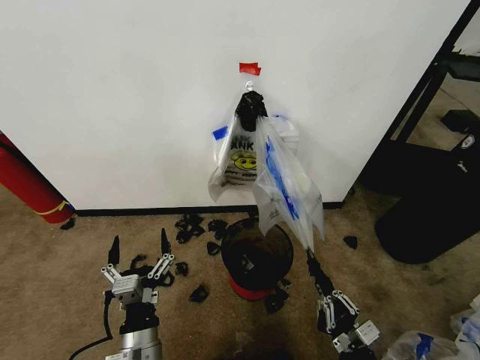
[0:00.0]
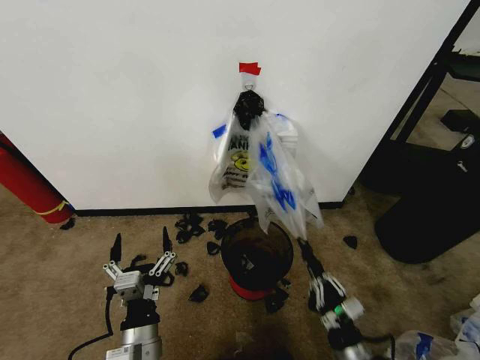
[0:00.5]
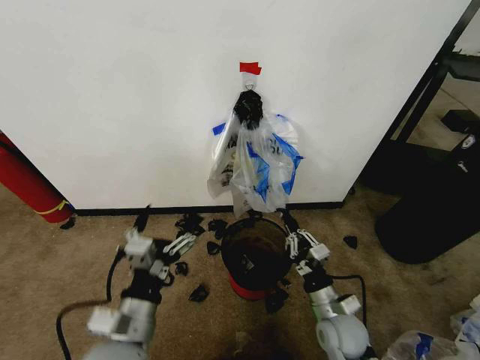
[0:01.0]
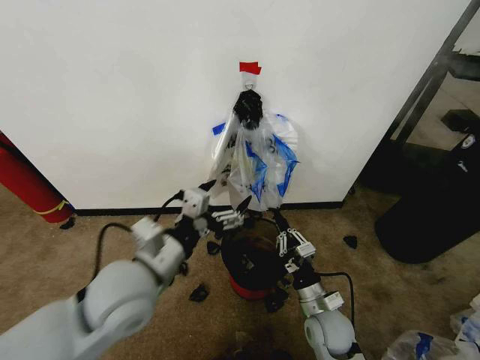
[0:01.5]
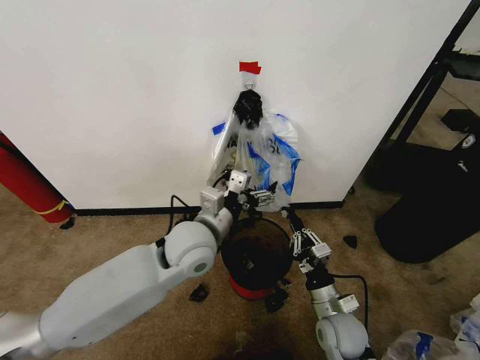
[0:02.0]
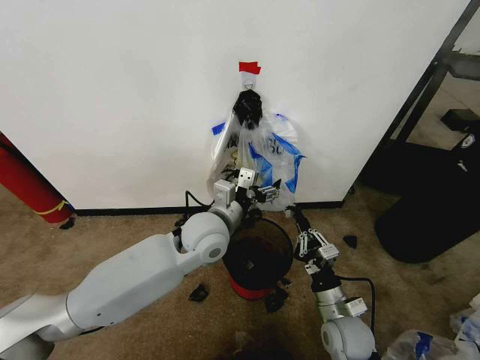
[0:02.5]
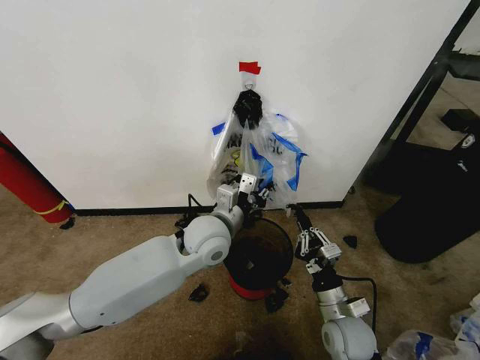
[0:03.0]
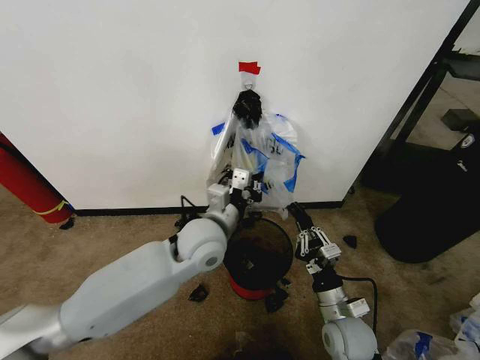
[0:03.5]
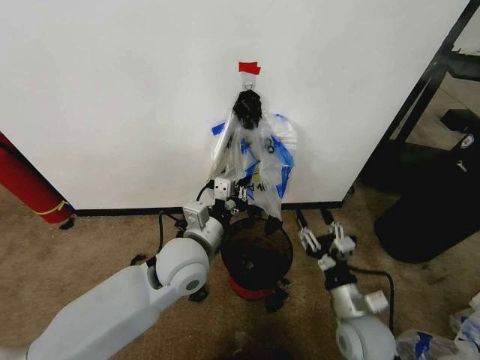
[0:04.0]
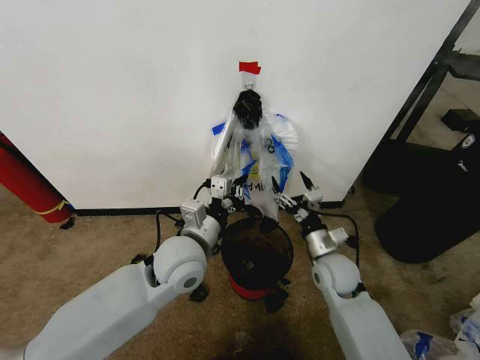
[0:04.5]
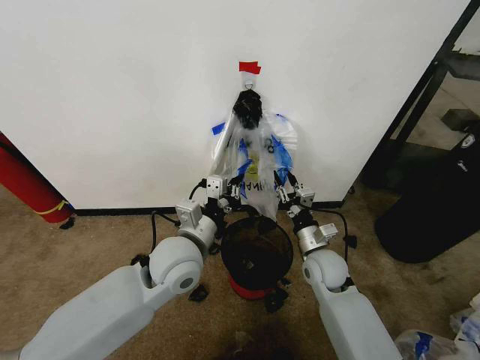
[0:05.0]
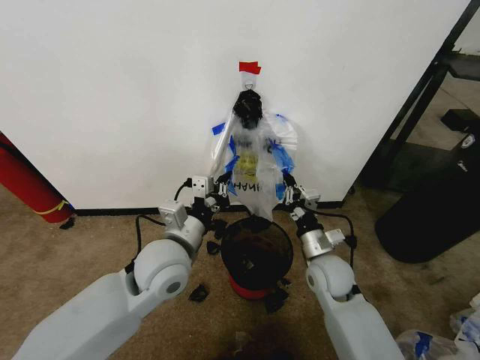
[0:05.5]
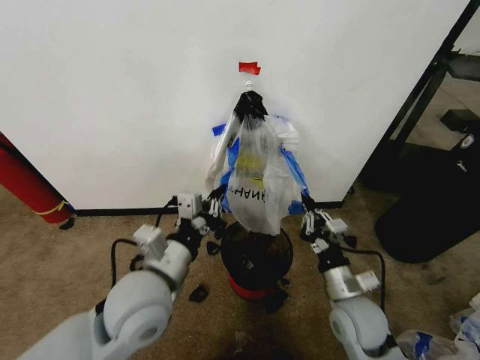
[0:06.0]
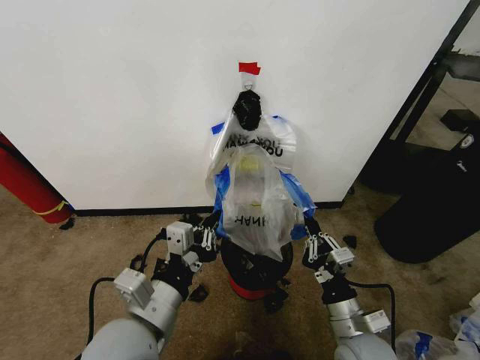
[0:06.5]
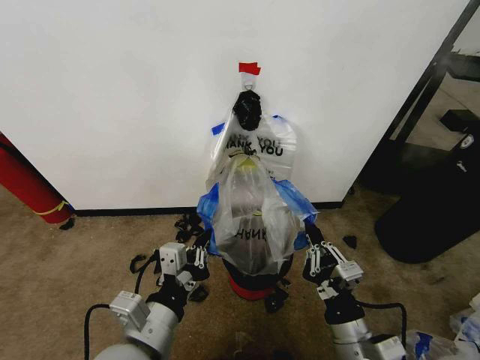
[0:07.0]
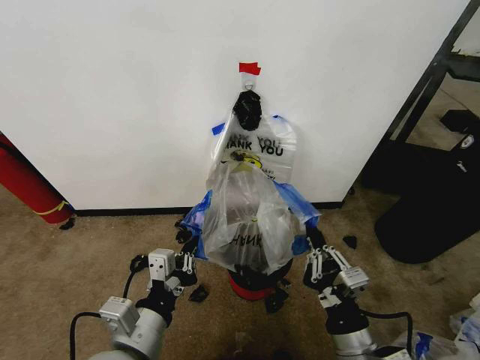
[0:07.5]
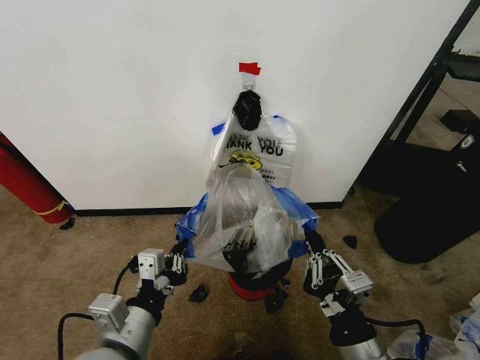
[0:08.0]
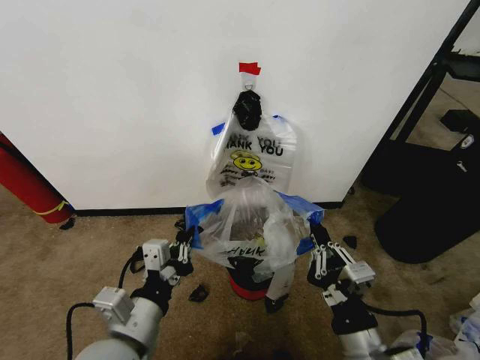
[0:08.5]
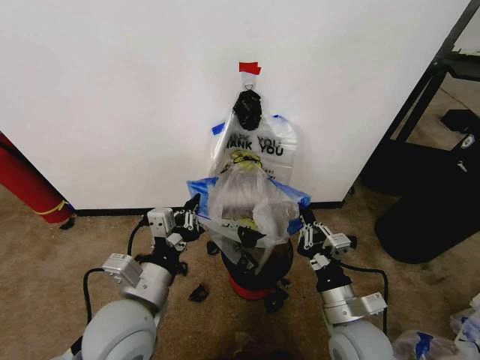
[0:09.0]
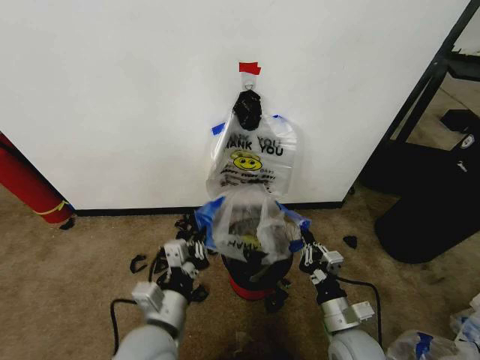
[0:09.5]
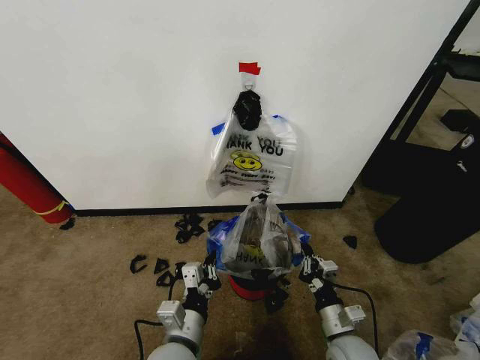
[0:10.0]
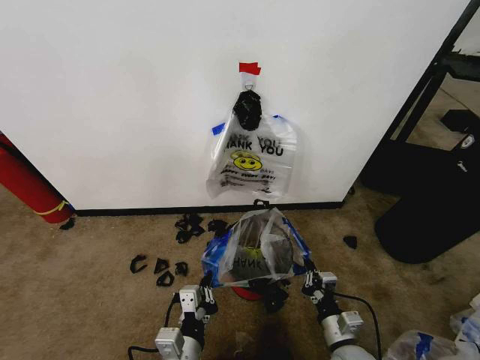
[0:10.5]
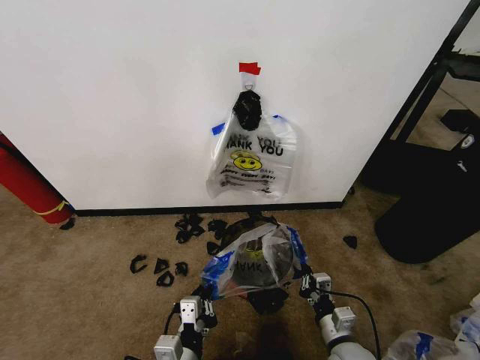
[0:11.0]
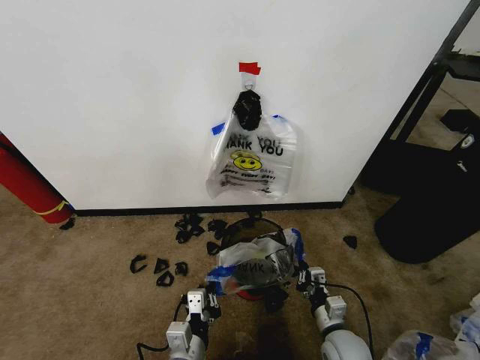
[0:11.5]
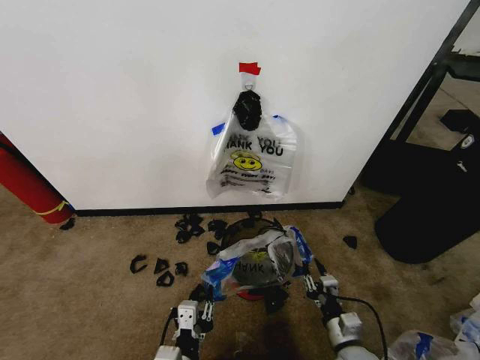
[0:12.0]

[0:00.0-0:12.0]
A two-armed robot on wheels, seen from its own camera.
Task of the whole recording: Pick up the garbage bag from the wall and place it over the trash bin.
0:00.0 to 0:02.0: The right gripper shifts roughly 15 cm forward. Meanwhile the left gripper is displaced forward and upward by about 25 cm.
0:02.0 to 0:04.0: The right gripper moves upward, approximately 5 cm, and opens its fingers; the left gripper closes.
0:04.0 to 0:06.0: The right gripper goes forward and returns, some 15 cm each way, and closes up, while the left gripper goes some 10 cm backward.
0:06.0 to 0:08.0: The right gripper is displaced backward and upward by roughly 15 cm, while the left gripper is displaced backward by about 10 cm.
0:08.0 to 0:10.0: The left gripper is displaced downward and to the right by some 15 cm. Meanwhile the right gripper is displaced downward and forward by approximately 20 cm.
0:10.0 to 0:12.0: The right gripper changes place by some 5 cm, and opens its fingers. Meanwhile the left gripper travels backward by about 5 cm, and opens its fingers.

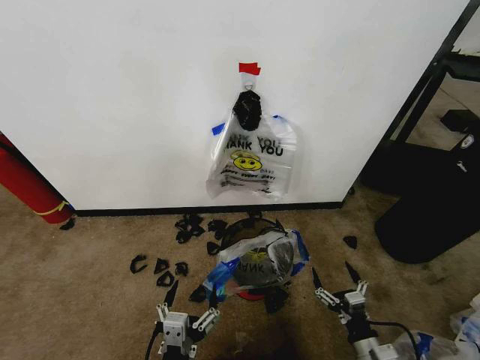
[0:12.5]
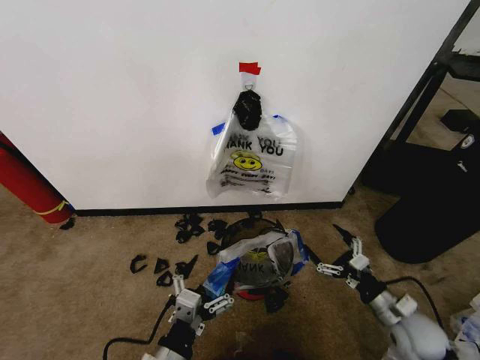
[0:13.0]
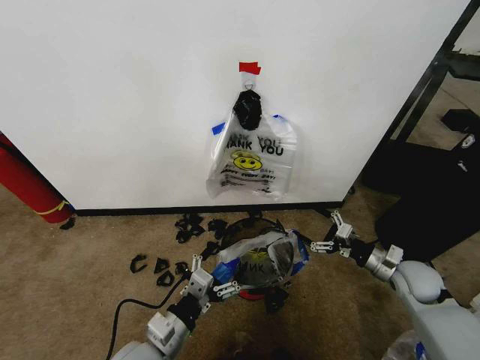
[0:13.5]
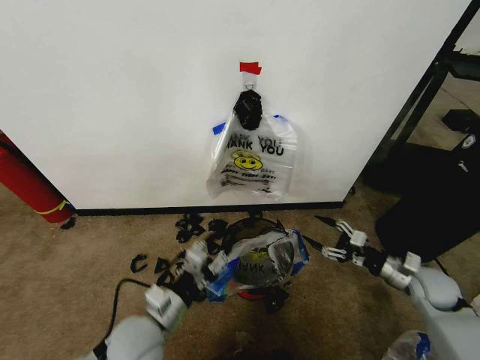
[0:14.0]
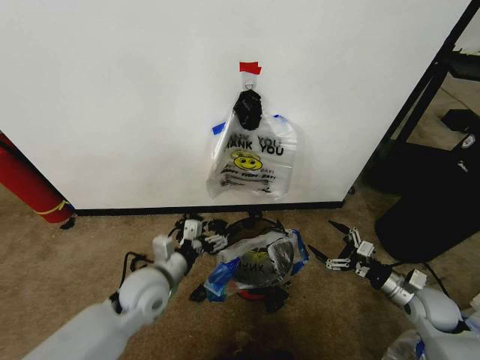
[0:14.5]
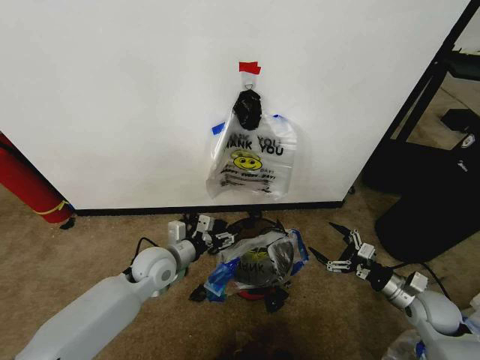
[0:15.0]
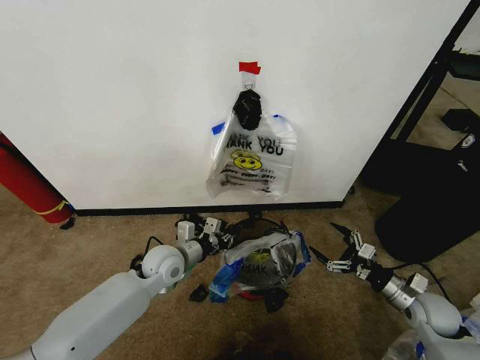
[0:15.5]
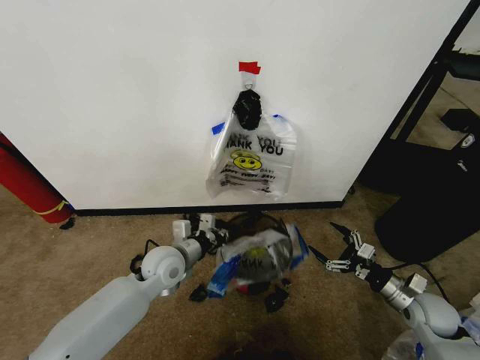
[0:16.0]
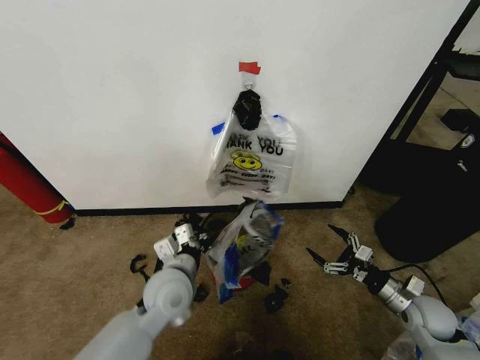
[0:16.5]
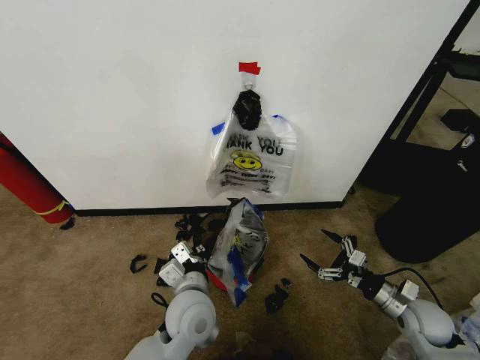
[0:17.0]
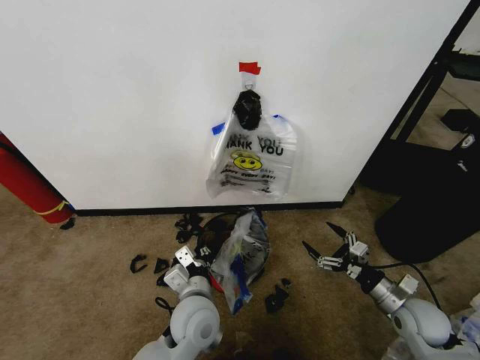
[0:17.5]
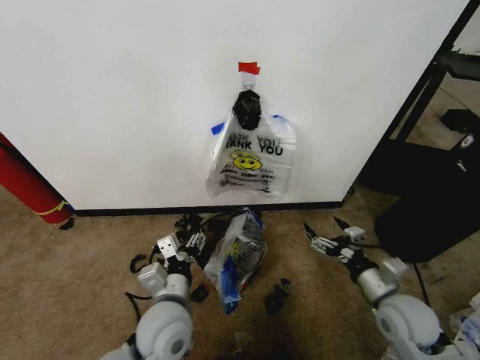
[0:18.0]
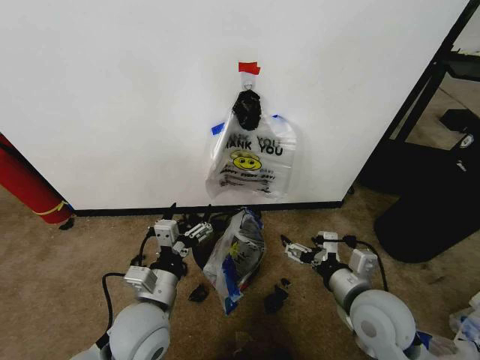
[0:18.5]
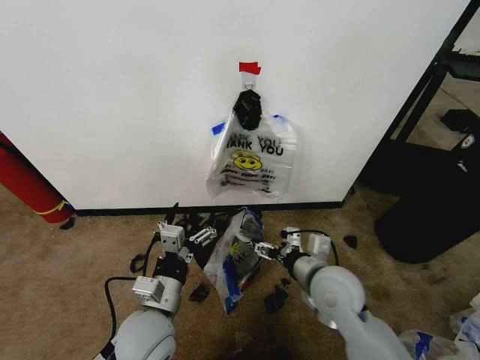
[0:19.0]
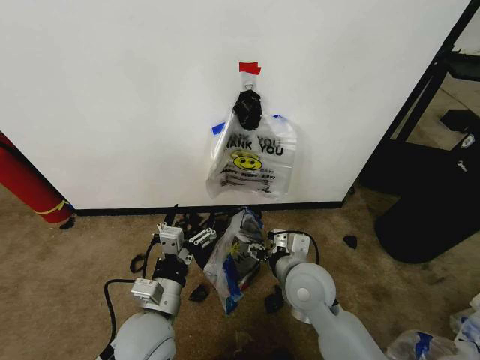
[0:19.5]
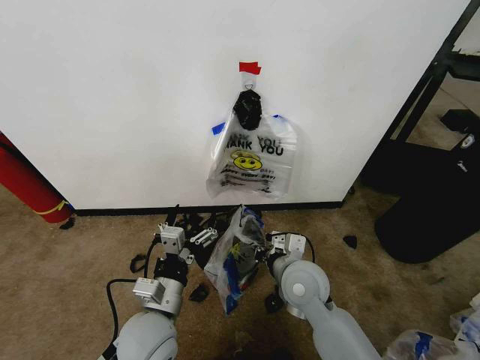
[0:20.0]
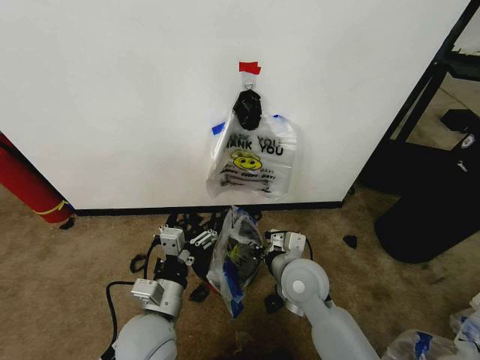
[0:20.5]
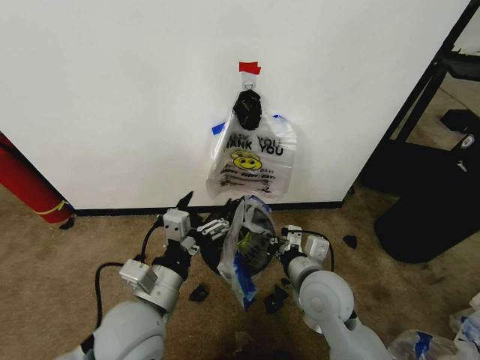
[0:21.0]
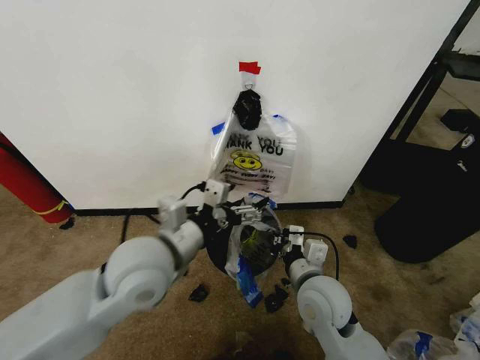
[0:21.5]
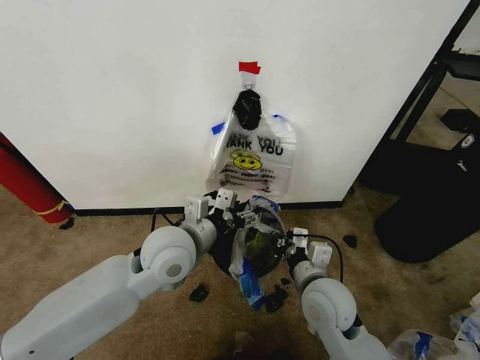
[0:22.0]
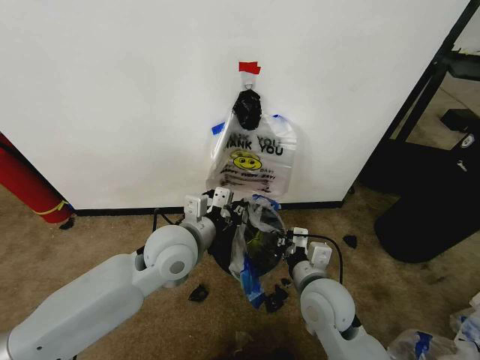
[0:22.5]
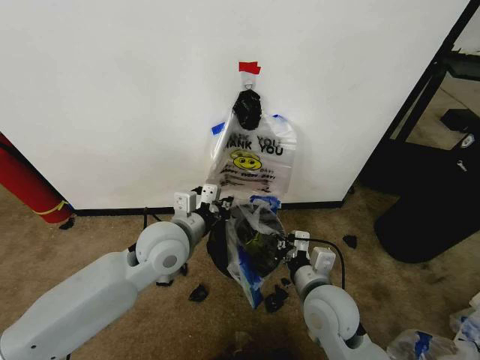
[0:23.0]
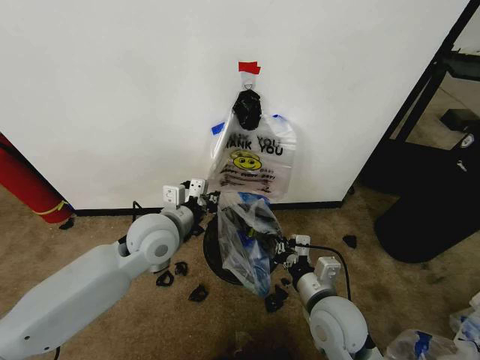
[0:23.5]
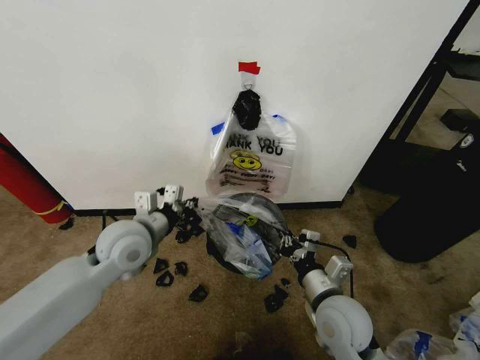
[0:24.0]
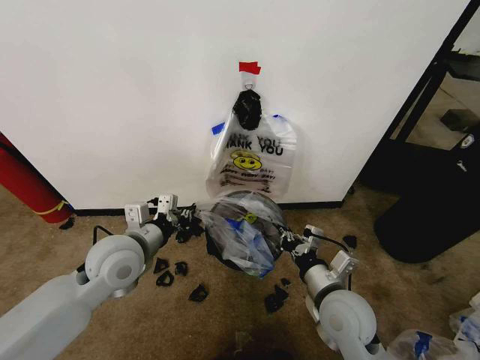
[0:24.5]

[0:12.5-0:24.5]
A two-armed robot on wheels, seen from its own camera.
Task of the whole recording: Pick up the garbage bag from the wall and place it over the trash bin.
0:12.5 to 0:14.5: The left gripper heads forward, covering approximately 25 cm, and closes, then opens again. The right gripper travels forward, to the right and upward by roughly 20 cm.
0:14.5 to 0:16.5: The left gripper is displaced to the right by approximately 5 cm, travels forward and back again, some 10 cm each way, and closes its fingers.
0:16.5 to 0:18.5: The left gripper travels backward by roughly 5 cm, and opens up; the right gripper shifts roughly 20 cm to the left and upward.
0:18.5 to 0:20.5: The right gripper travels to the left and forward by some 15 cm, and closes its fingers.
0:20.5 to 0:22.5: The right gripper shifts by some 5 cm, while the left gripper shifts about 15 cm forward and upward, and closes.
0:22.5 to 0:24.5: The left gripper moves to the left, some 10 cm.

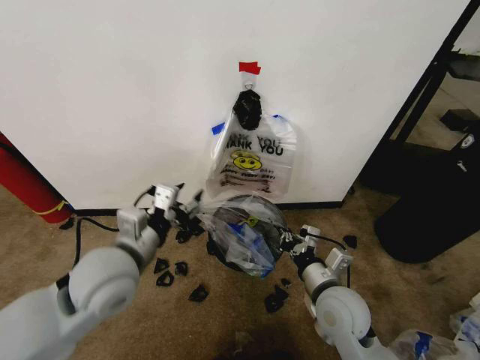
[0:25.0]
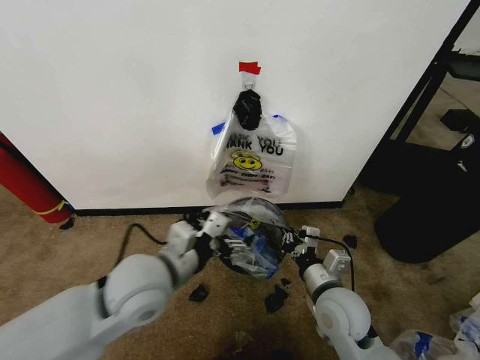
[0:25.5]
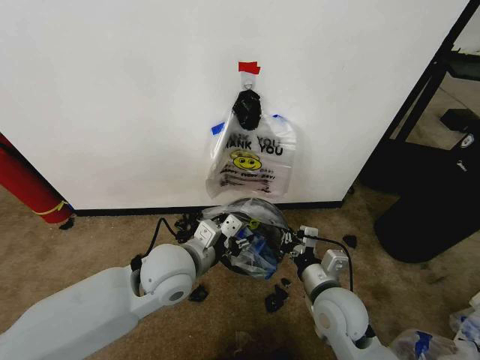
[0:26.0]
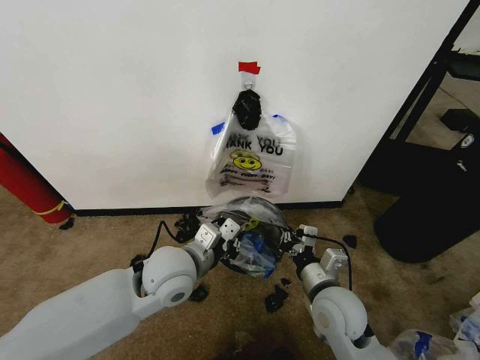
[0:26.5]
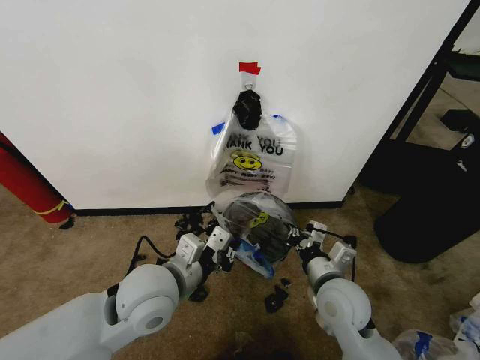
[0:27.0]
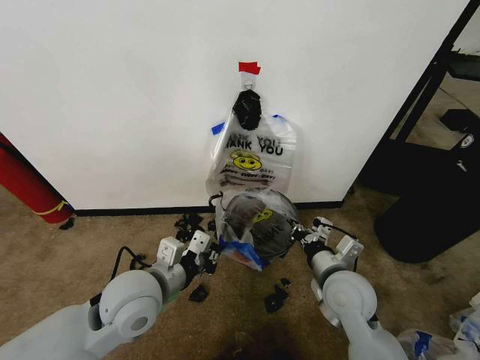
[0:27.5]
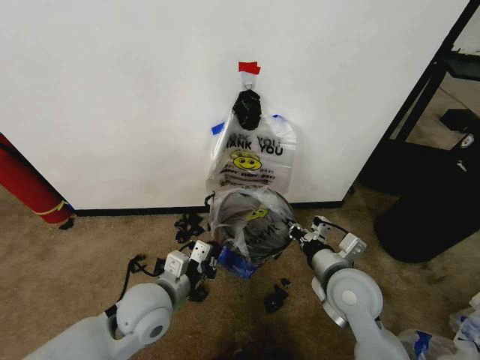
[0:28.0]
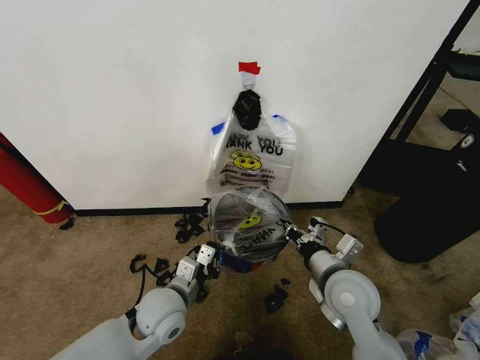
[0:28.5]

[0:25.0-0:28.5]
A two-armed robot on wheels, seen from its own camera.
Task of the whole recording: Pick up the garbage bag from the wall and place it over the trash bin.
0:25.0 to 0:27.0: The left gripper heads to the right, covering roughly 5 cm, and closes up.
0:27.0 to 0:28.5: The left gripper goes about 10 cm downward.
